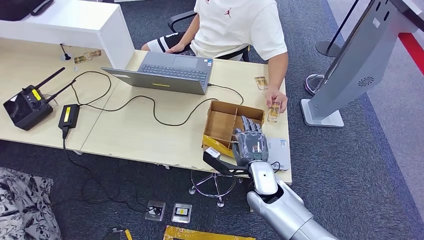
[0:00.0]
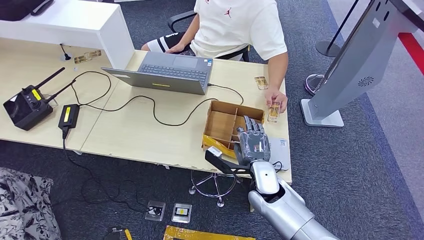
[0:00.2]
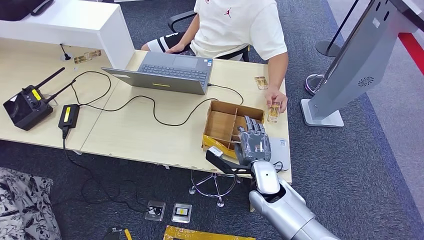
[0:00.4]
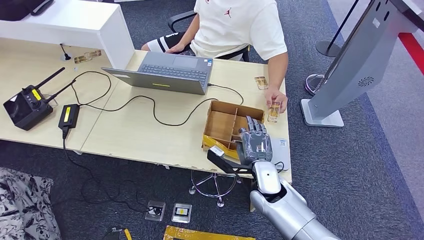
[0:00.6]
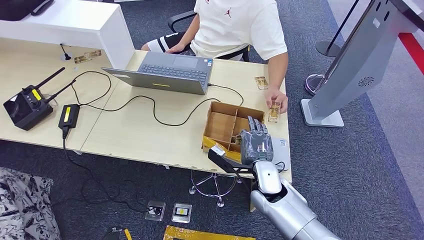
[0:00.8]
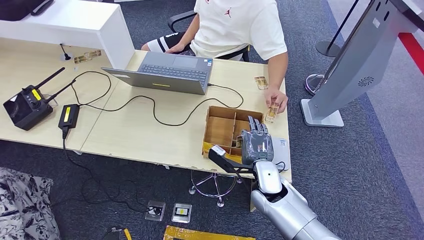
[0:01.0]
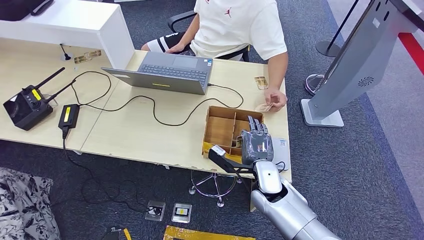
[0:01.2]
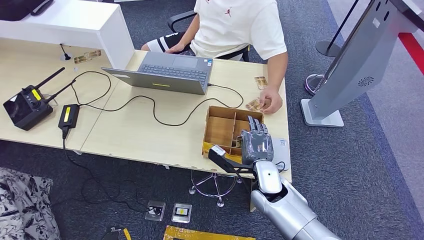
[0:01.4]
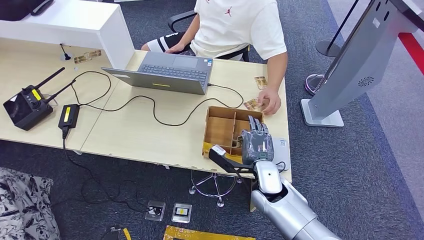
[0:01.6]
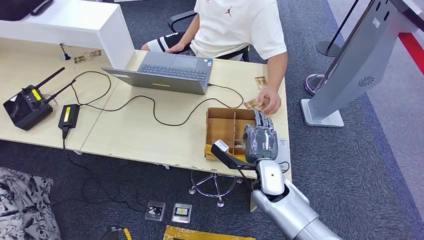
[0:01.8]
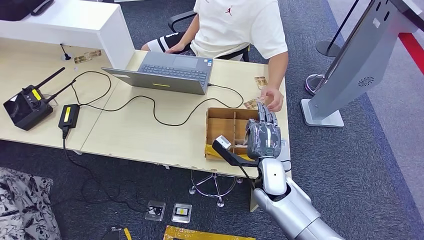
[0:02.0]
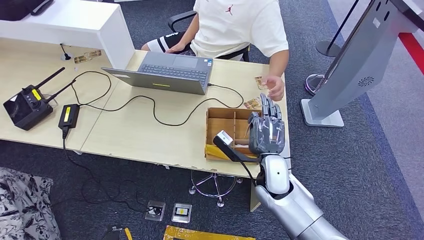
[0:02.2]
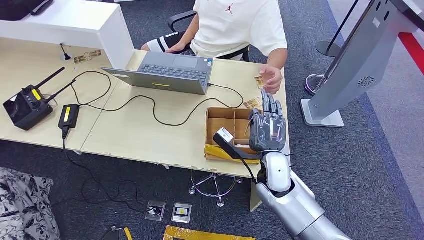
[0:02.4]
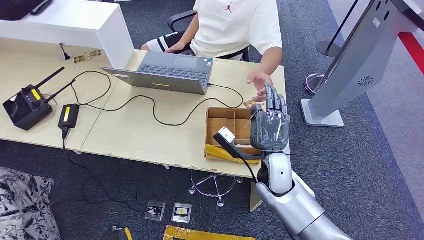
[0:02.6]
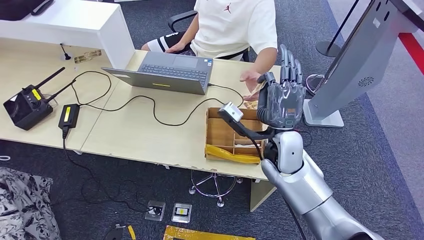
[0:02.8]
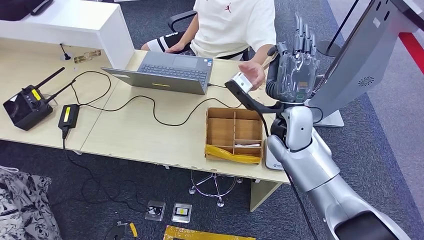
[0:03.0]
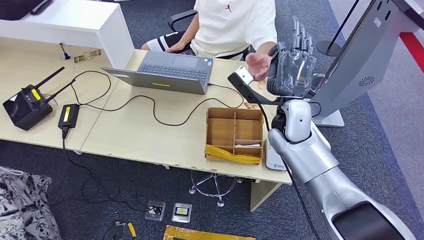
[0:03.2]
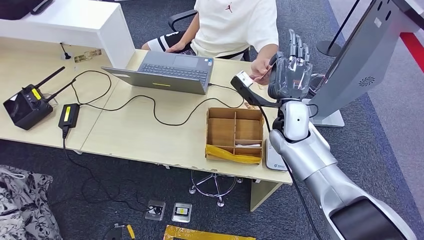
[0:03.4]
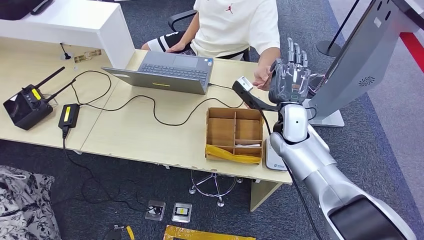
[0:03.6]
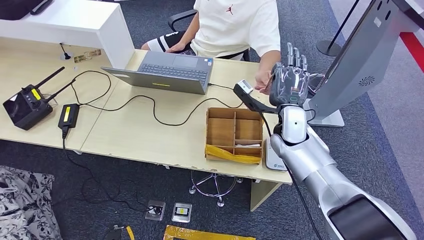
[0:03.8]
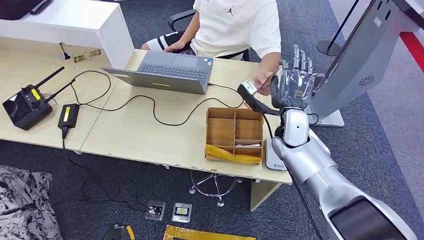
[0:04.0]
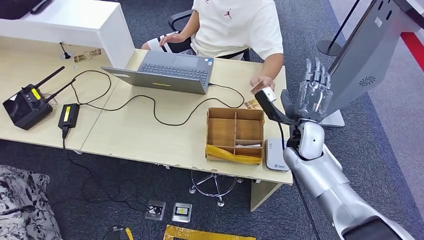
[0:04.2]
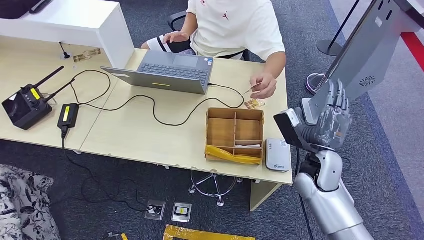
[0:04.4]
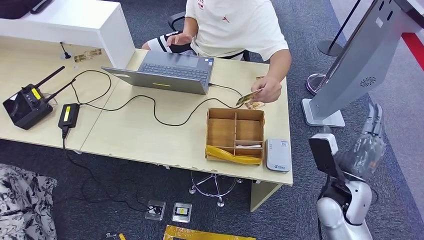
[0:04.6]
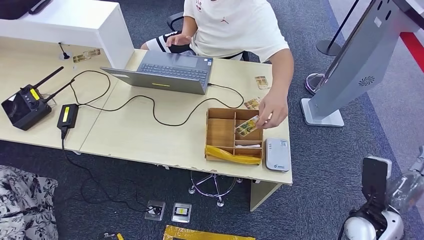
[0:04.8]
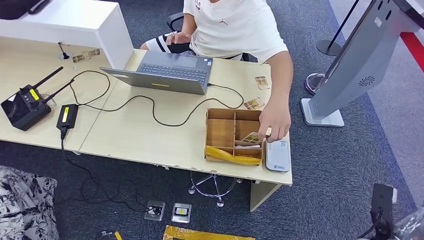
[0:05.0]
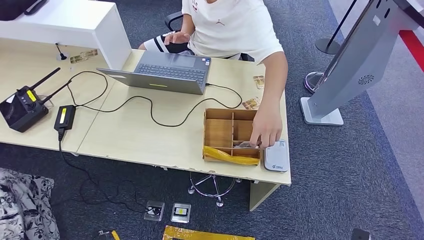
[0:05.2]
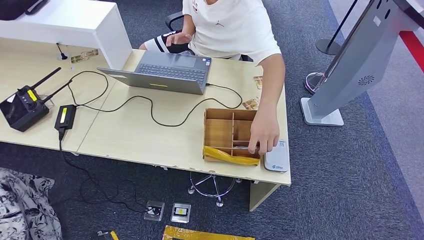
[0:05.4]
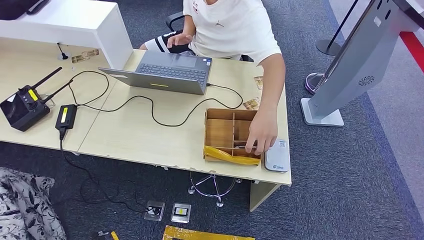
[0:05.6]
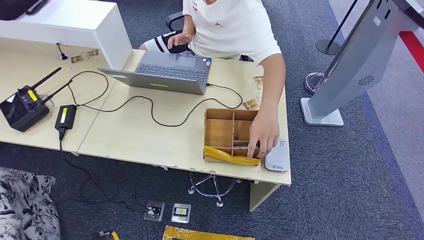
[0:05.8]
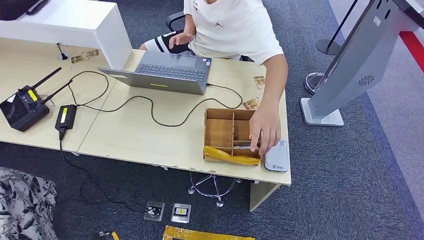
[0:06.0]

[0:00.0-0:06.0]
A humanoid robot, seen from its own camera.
Step, 0:00.0 to 0:02.0: Pick up the room key from the key card box.
Step, 0:02.2 to 0:06.0: Hand the room key to the person.
0:00.0 to 0:01.6: Neither hand changes place.
0:01.6 to 0:03.0: The right hand moves upward and forward, about 20 cm.
0:03.0 to 0:04.4: The right hand moves downward, to the right and backward, roughly 15 cm.
